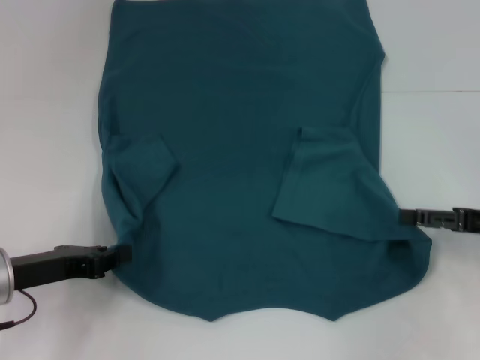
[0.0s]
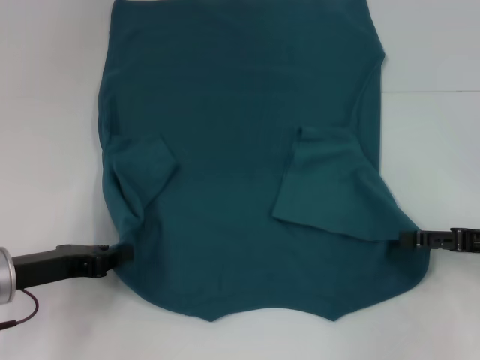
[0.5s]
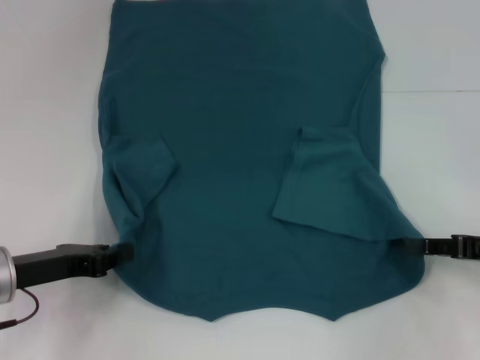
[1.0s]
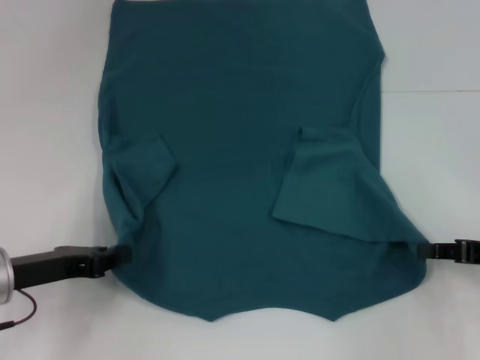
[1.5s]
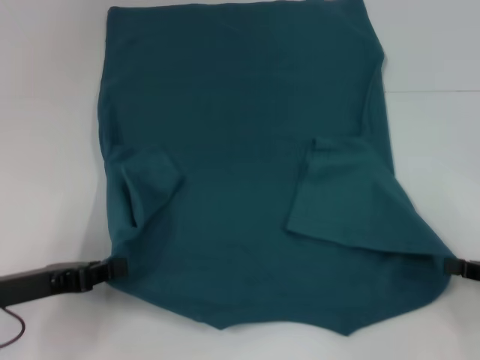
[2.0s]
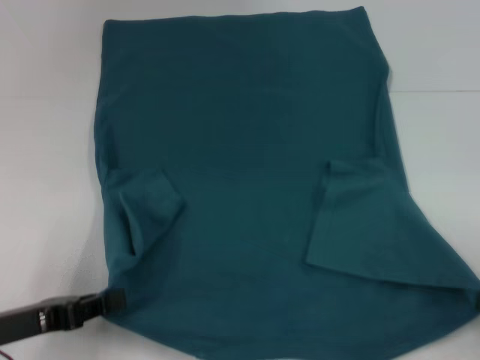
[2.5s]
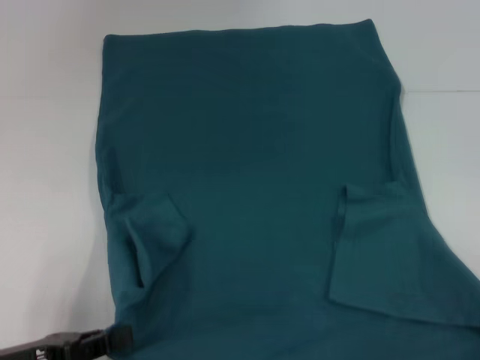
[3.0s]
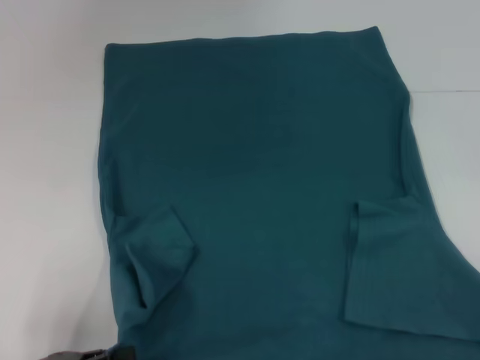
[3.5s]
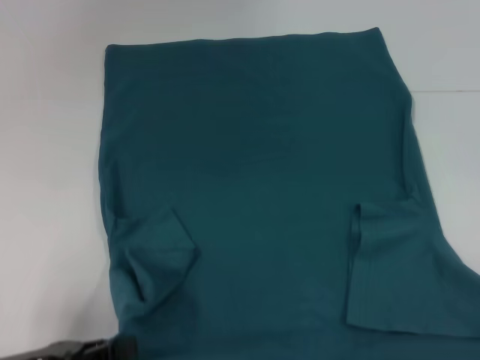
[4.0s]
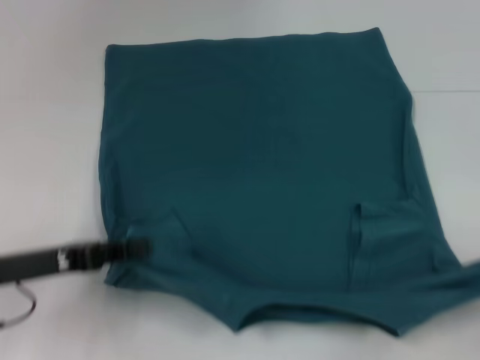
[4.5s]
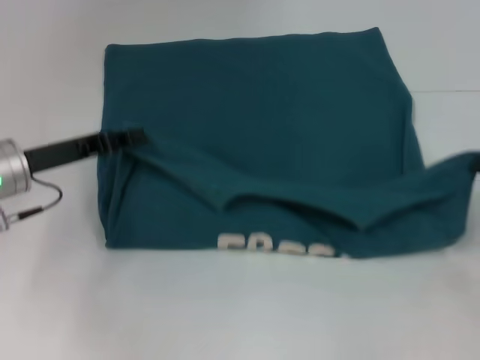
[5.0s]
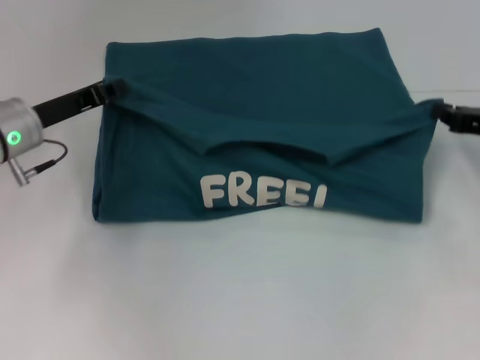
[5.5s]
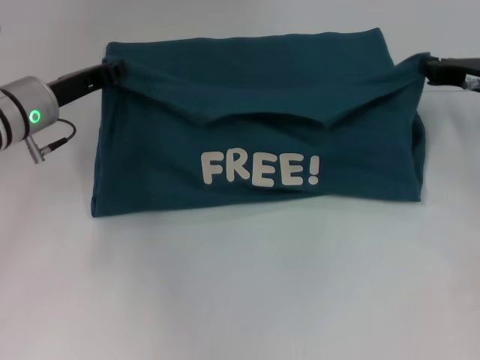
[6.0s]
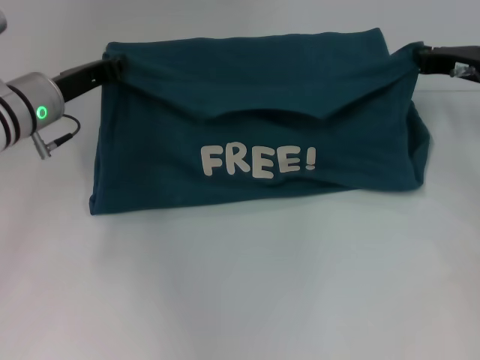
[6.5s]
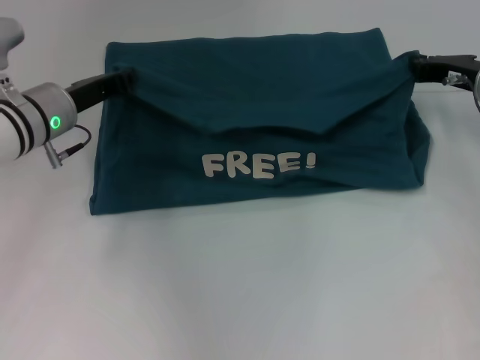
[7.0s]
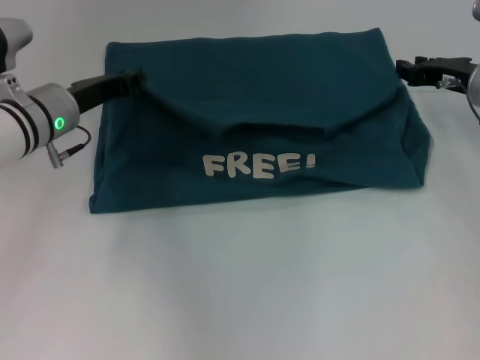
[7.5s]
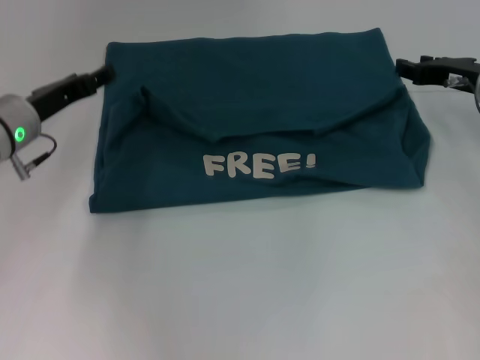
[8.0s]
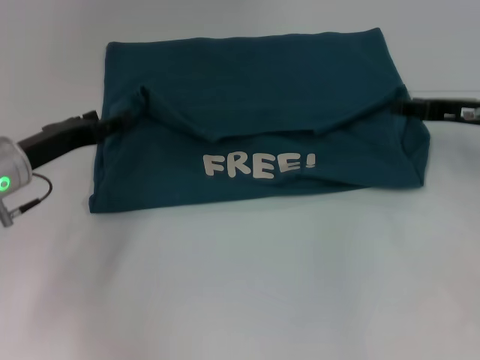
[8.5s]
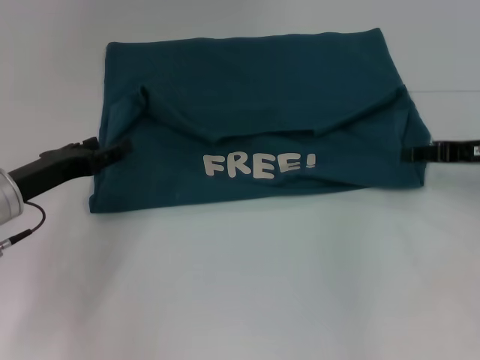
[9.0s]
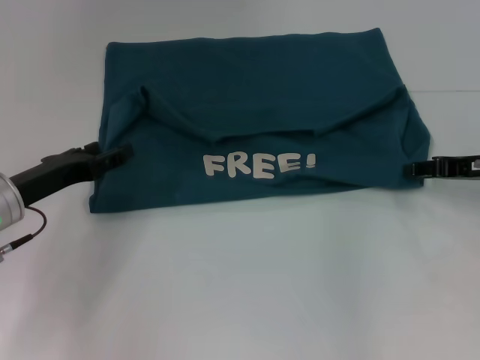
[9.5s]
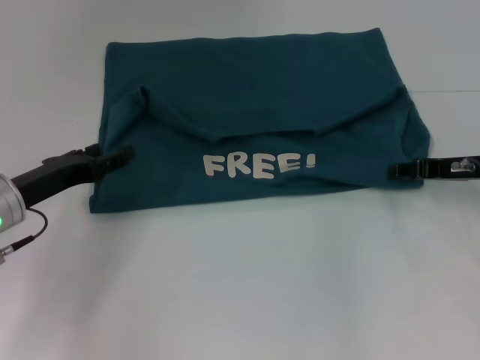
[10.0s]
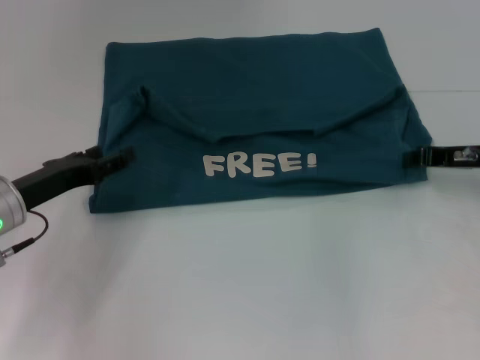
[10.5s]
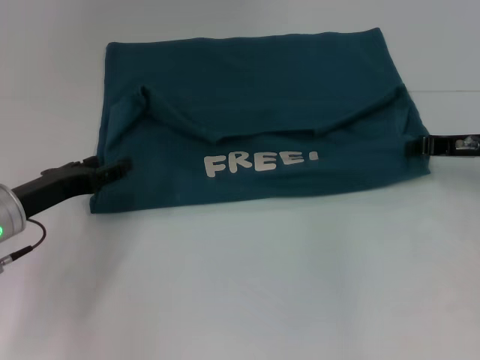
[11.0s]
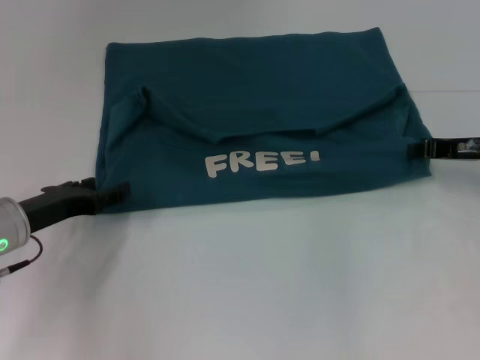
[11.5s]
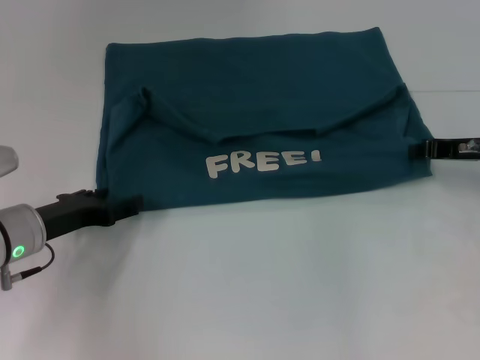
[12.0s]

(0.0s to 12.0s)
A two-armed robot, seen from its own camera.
Step, 0.0s - 1.5s: Grab the bottom right corner with your right hand.
Step, 2.0s - 7.5s: Fold the clothes to the left.
Step, 2.0s - 7.5s: Fold the clothes to the right.
0.0s - 2.0s: The right gripper heads backward, covering roughly 5 cm, and closes.
2.0s - 4.0s: The left gripper travels backward by approximately 10 cm; the right gripper goes roughly 15 cm backward.
4.0s - 6.0s: The two grippers go some 30 cm forward.
6.0s - 8.0s: The right gripper opens its fingers. Meanwhile the left gripper opens.
8.0s - 10.0s: Both grippers move backward, roughly 5 cm.
10.0s - 12.0s: The right gripper closes its fingers.

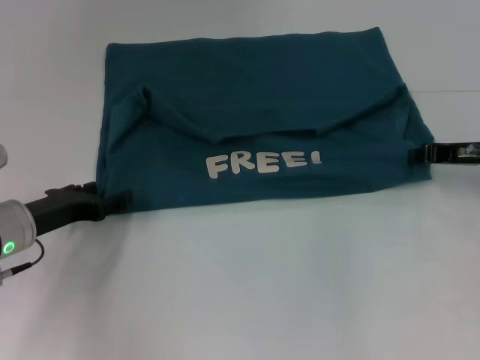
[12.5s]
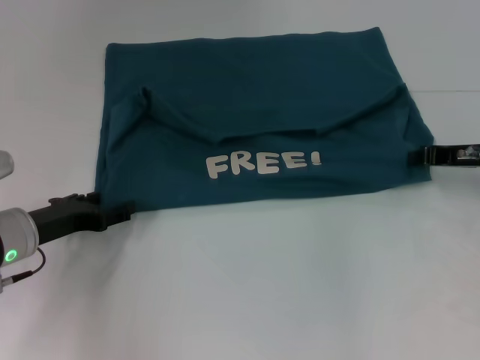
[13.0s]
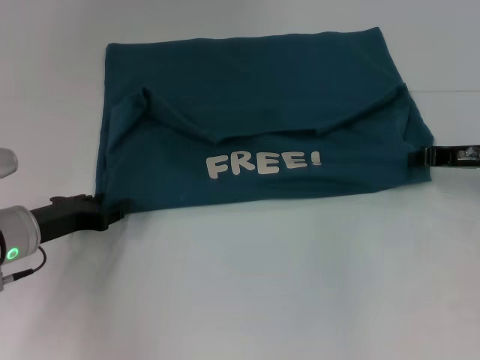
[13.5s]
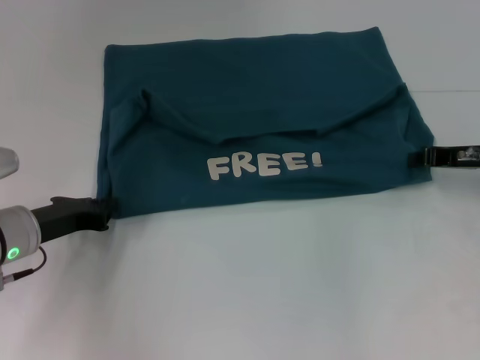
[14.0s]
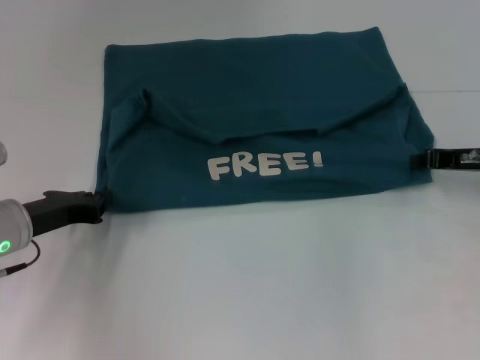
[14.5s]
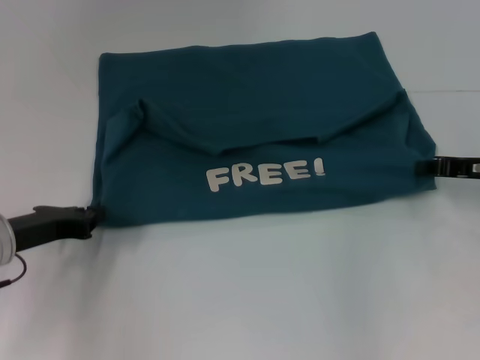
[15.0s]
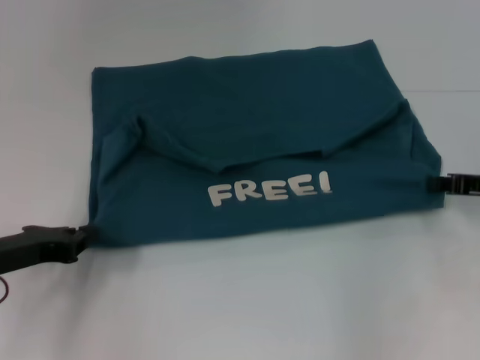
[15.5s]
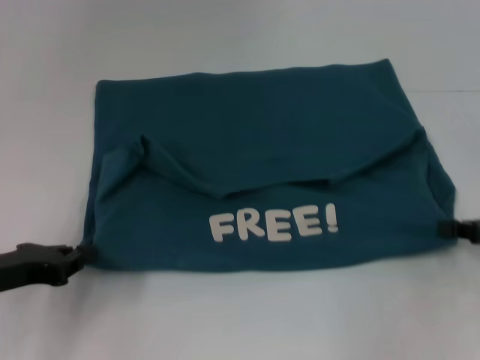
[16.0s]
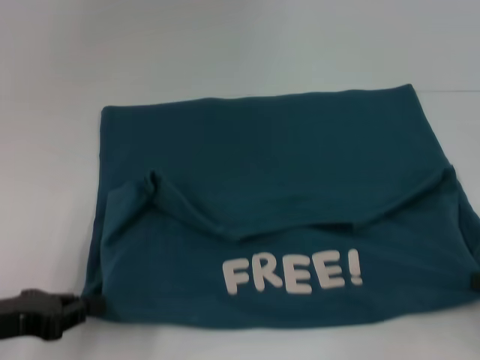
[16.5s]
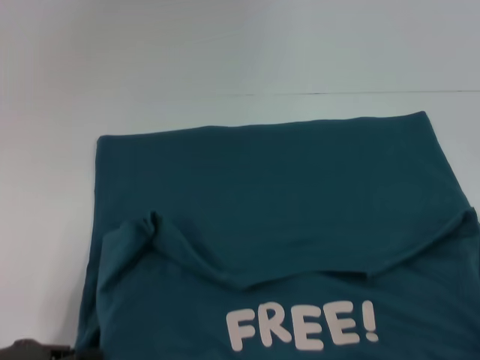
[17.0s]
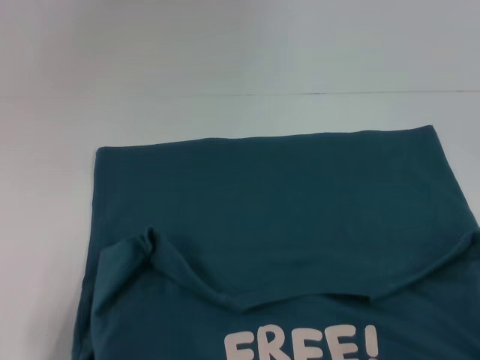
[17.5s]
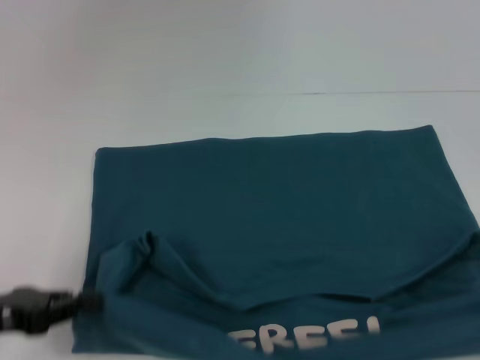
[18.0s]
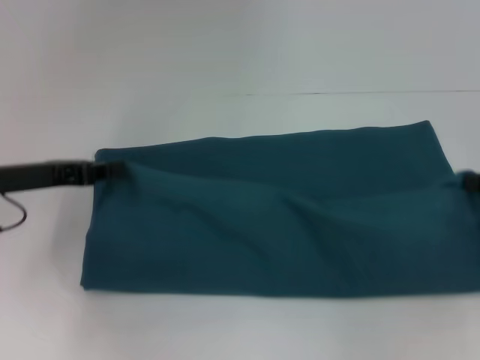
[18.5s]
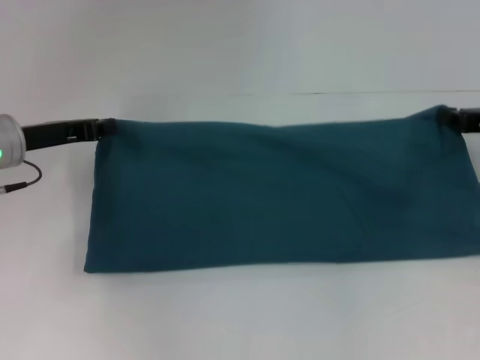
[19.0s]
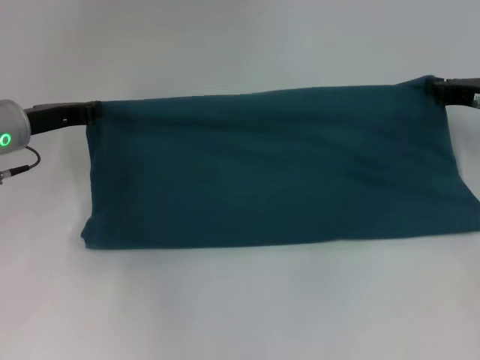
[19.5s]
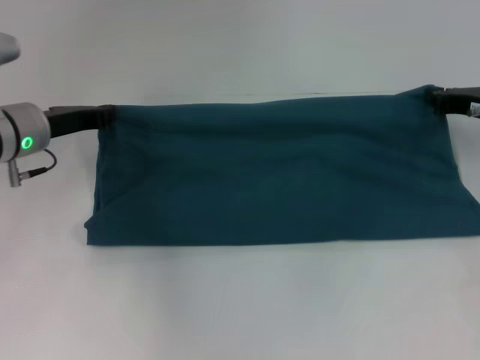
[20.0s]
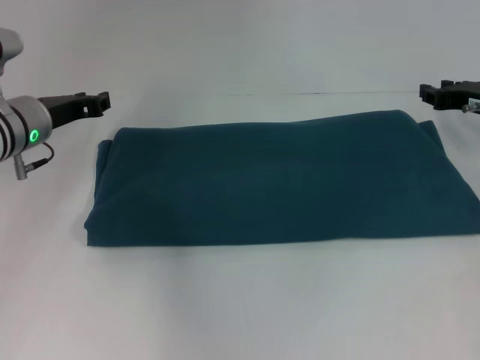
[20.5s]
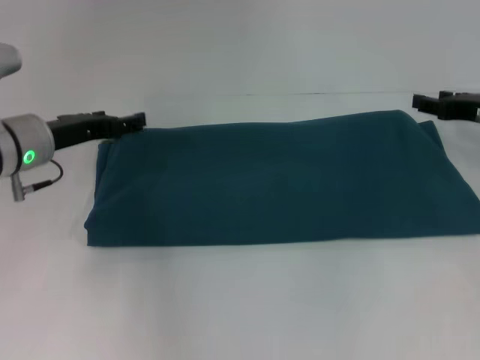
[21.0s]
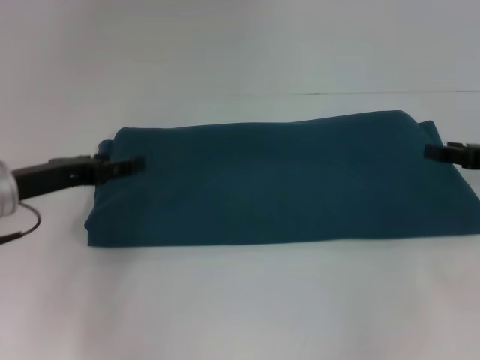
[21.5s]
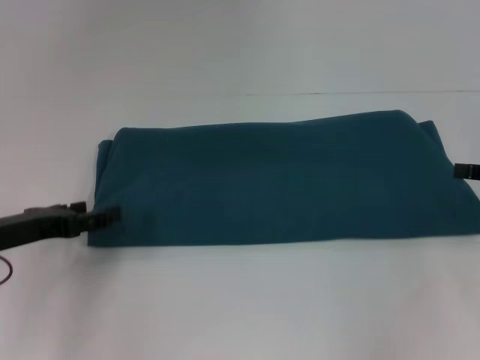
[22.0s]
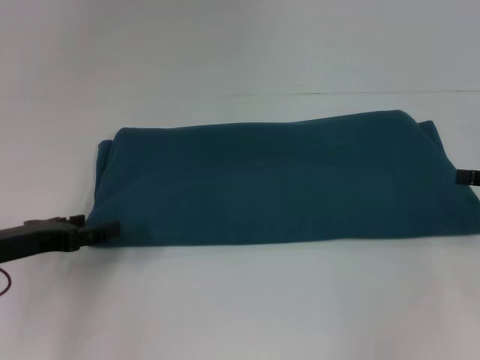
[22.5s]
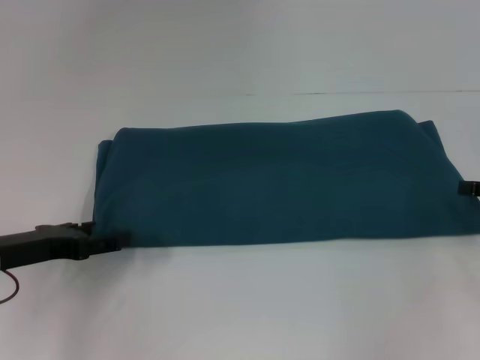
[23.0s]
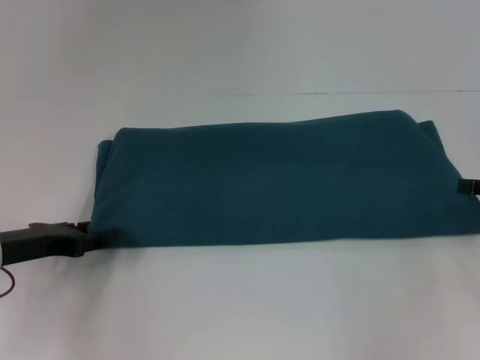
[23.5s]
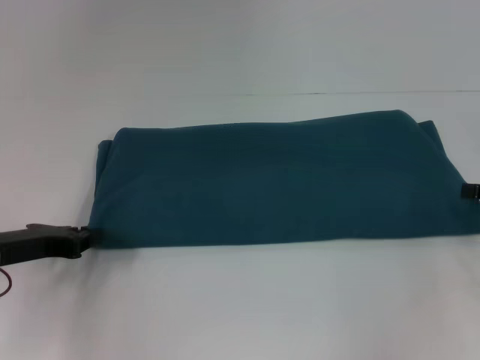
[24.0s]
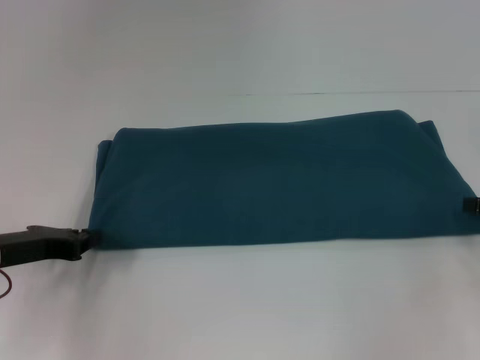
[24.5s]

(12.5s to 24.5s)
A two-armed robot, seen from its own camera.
Step, 12.5s - 17.5s: Pull the clothes with your left hand.
Step, 12.5s - 17.5s: Pull the clothes with your right hand.
Step, 18.0s - 20.5s: Fold the clothes to the right.
12.5s - 14.5s: The left gripper closes its fingers.
14.5s - 16.5s: The right gripper travels backward and to the right by roughly 15 cm. Meanwhile the left gripper shifts approximately 10 cm backward.
16.5s - 18.5s: The right gripper shifts approximately 5 cm forward; the left gripper shifts some 10 cm forward.
18.5s - 20.5s: The left gripper goes about 10 cm forward. The right gripper is displaced forward and to the left by some 15 cm.
20.5s - 22.5s: The right gripper is displaced backward and to the right by approximately 15 cm, and opens up; the left gripper moves backward, about 15 cm, and opens its fingers.
22.5s - 24.5s: The left gripper closes.

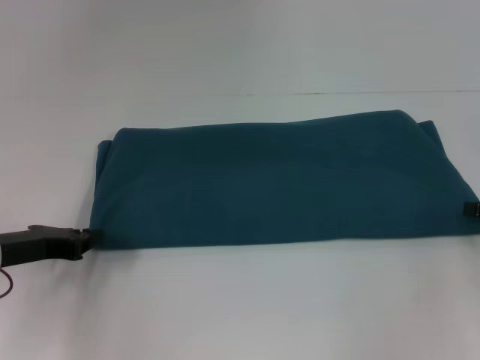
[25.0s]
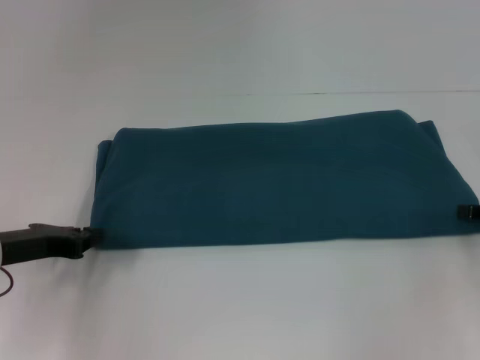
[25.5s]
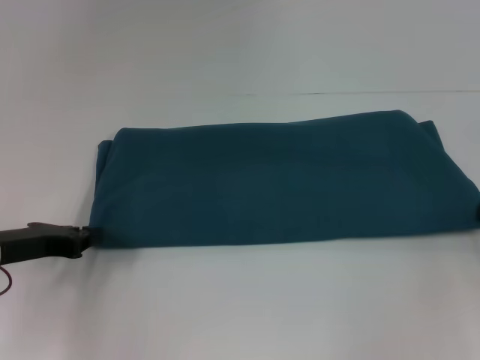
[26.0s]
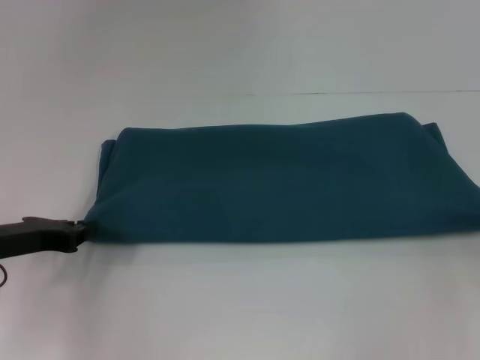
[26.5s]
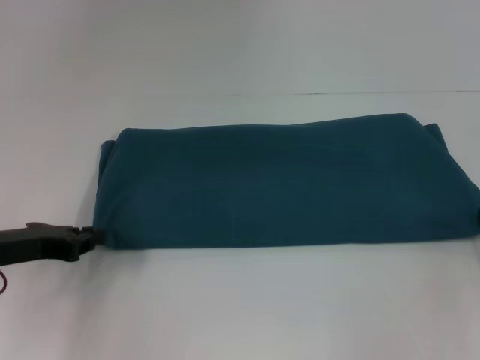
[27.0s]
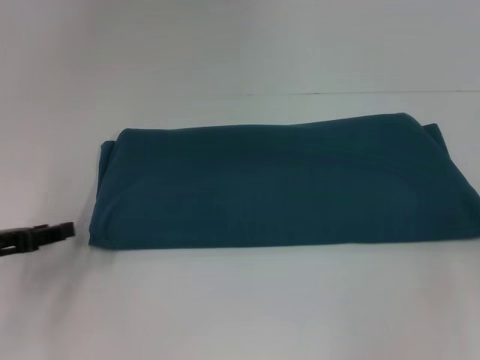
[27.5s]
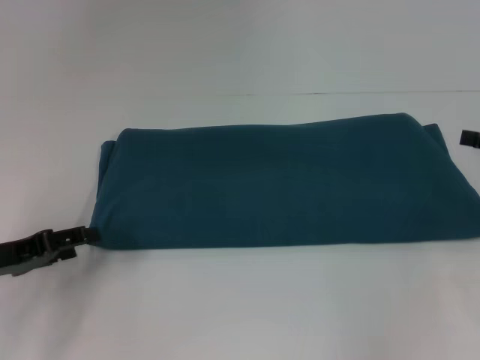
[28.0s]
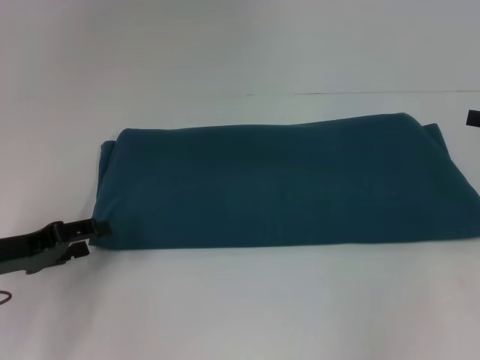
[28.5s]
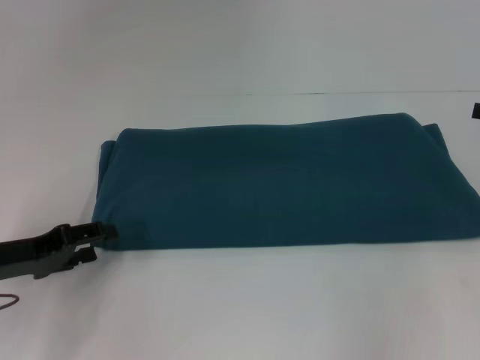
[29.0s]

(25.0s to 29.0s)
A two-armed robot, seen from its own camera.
25.0s - 27.0s: The right gripper closes.
27.0s - 29.0s: The left gripper opens.
